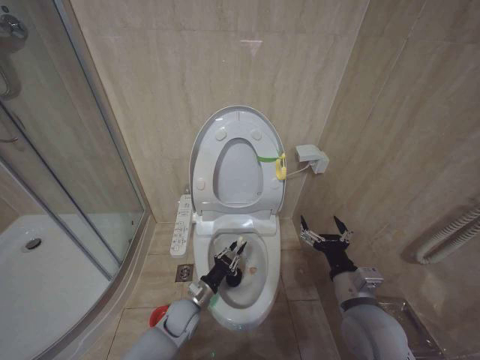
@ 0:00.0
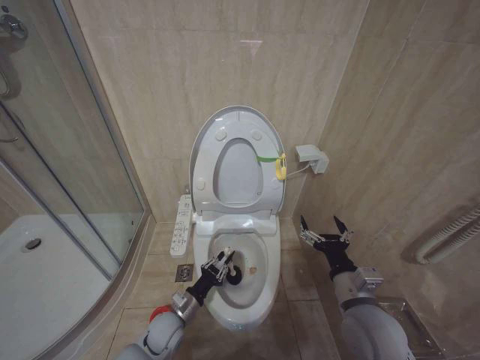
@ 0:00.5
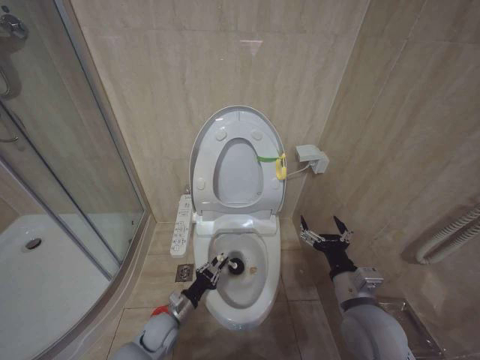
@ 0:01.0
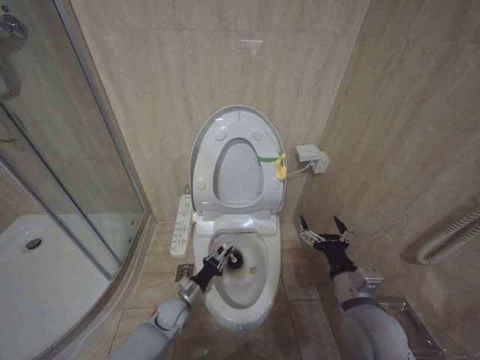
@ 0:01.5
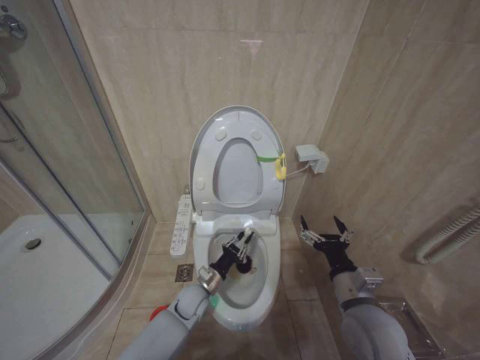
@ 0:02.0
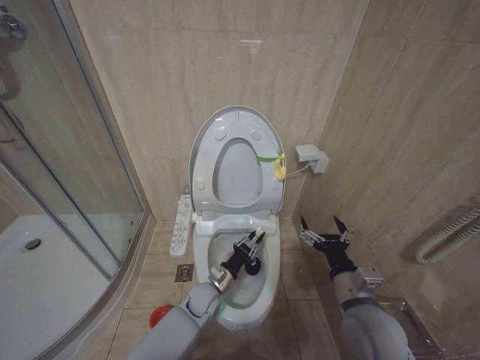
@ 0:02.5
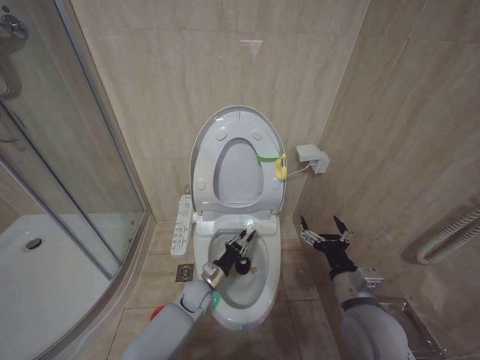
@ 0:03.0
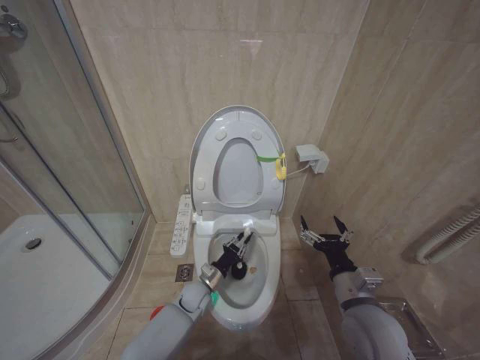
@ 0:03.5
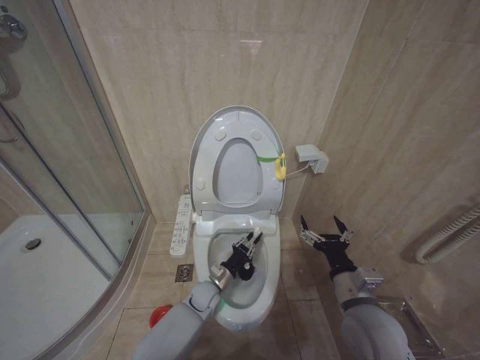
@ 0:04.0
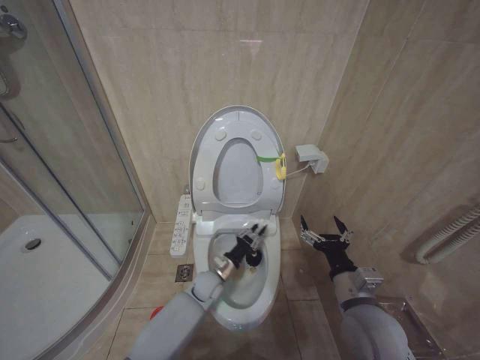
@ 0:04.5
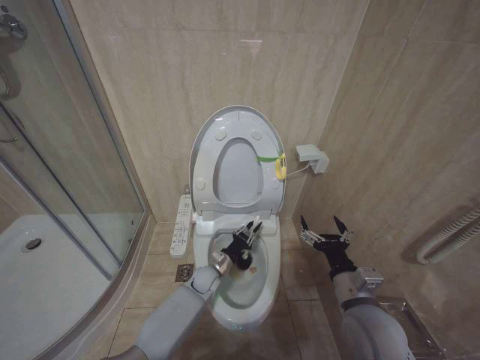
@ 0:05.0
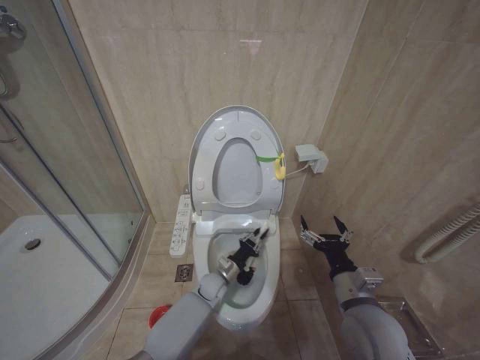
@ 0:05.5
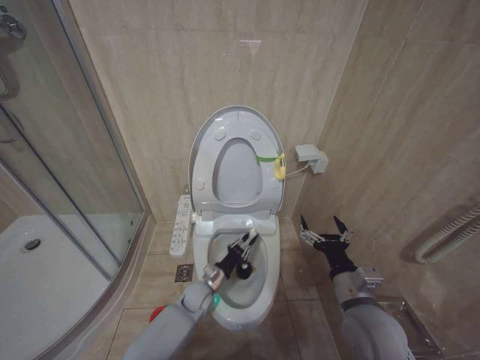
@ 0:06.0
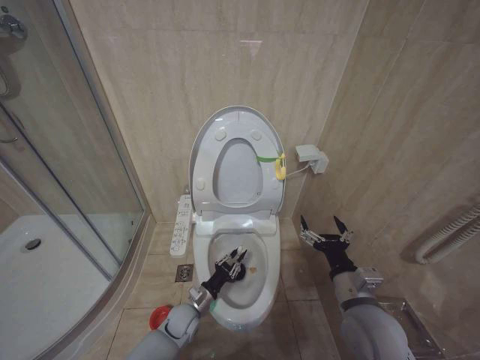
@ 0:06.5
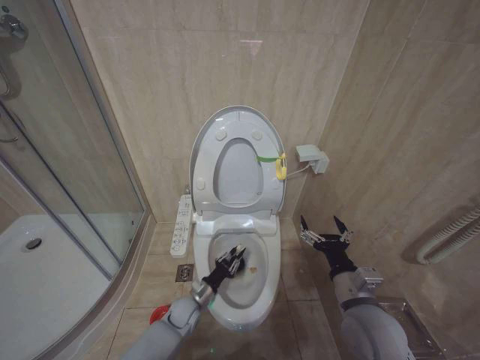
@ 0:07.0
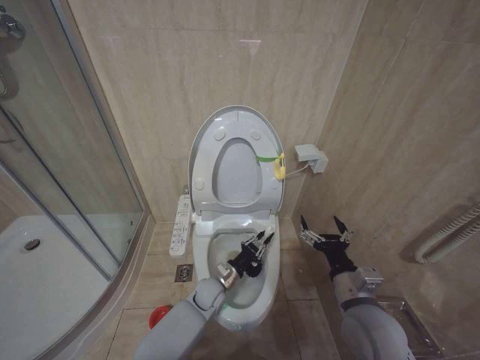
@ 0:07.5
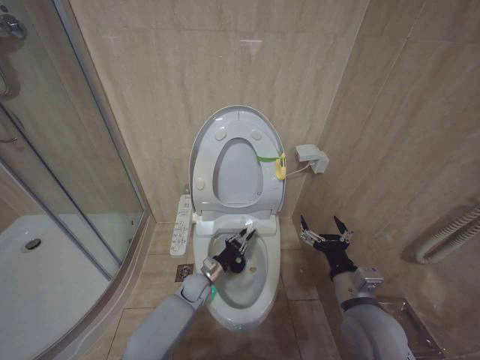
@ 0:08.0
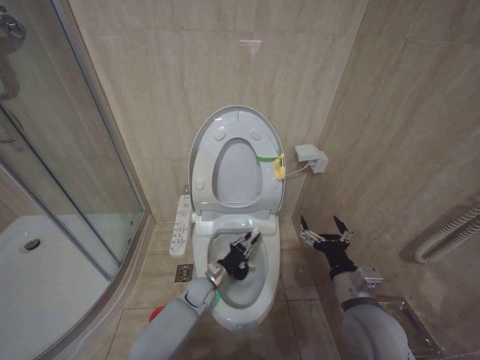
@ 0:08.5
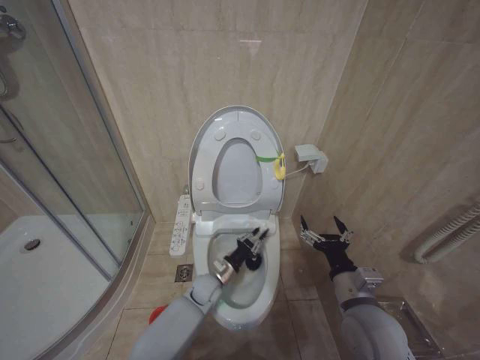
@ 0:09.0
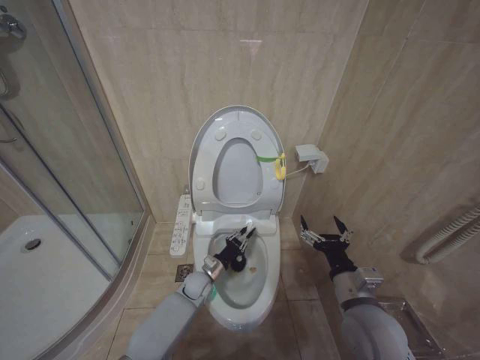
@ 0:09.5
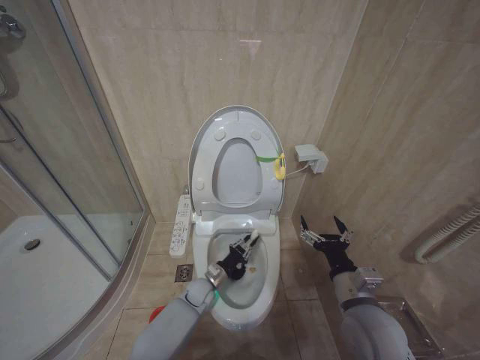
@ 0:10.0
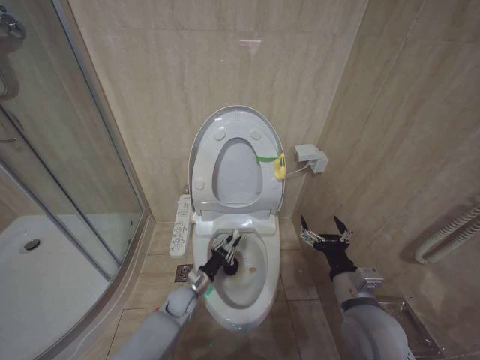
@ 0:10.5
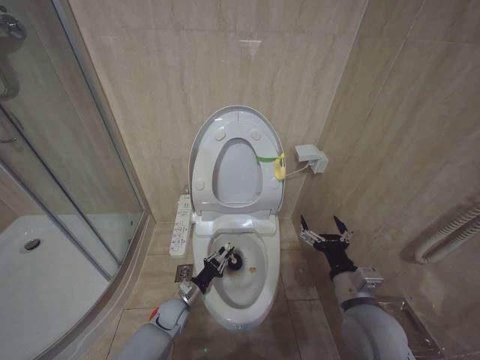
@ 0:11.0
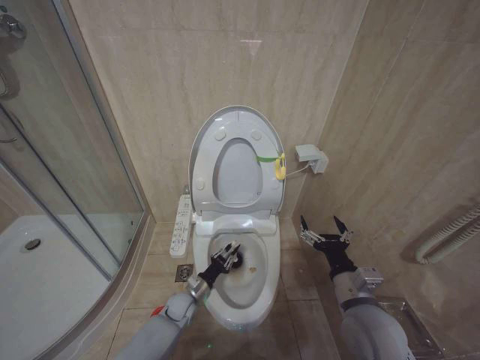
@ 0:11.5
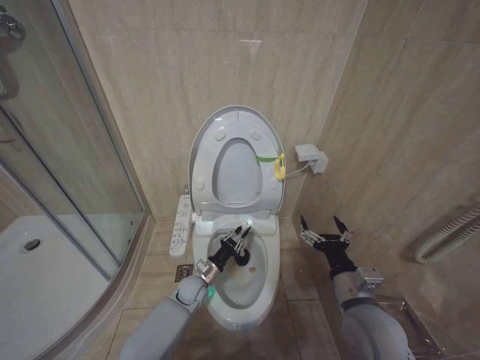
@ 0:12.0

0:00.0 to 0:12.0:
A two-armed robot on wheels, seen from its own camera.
Task of the whole recording: Open the toilet lid, clean the toilet bowl with a toilet brush, close the toilet lid, and flush.
0:00.0 to 0:02.0: The left gripper moves about 5 cm to the left and comes back.
0:02.0 to 0:04.0: There are only small adjustments of the grippers.
0:04.0 to 0:06.0: The grippers stay close to where they were, moving slightly.
0:06.0 to 0:08.0: The left gripper moves left and right over roughly 10 cm, changing direction 2 times.
0:08.0 to 0:10.0: There are only small adjustments of the grippers.
0:10.0 to 0:12.0: The left gripper heads to the left, covering approximately 5 cm.

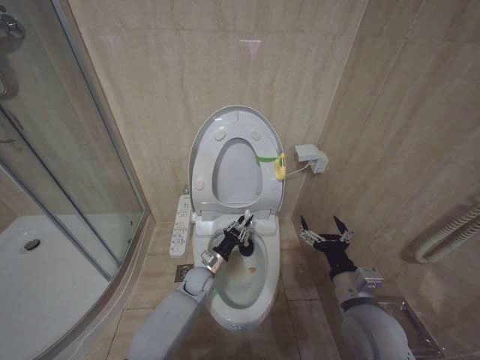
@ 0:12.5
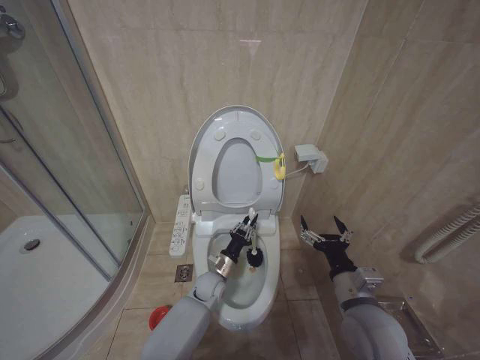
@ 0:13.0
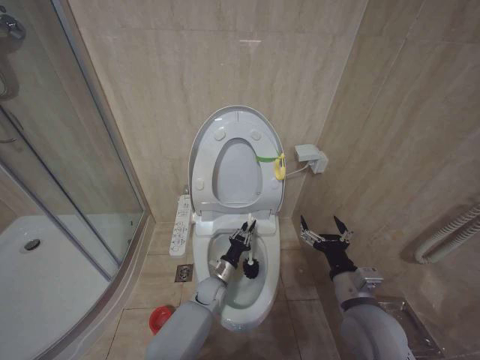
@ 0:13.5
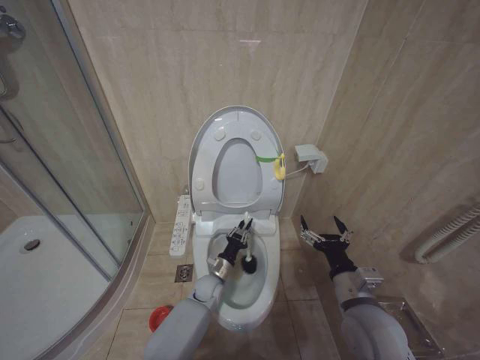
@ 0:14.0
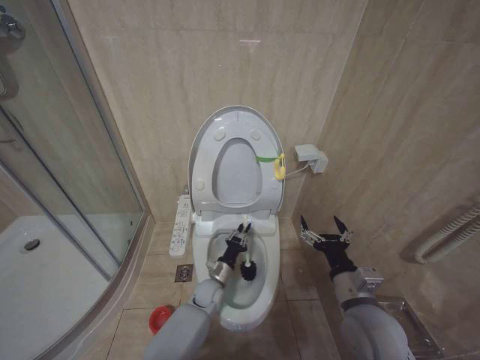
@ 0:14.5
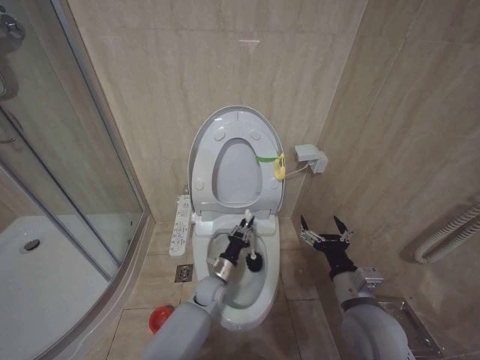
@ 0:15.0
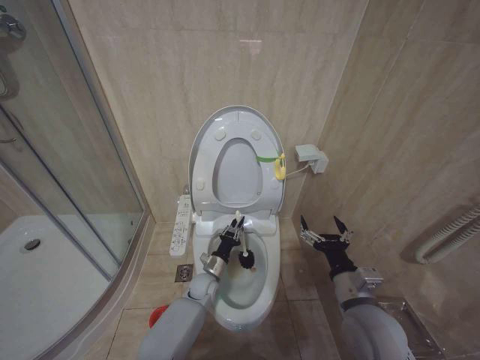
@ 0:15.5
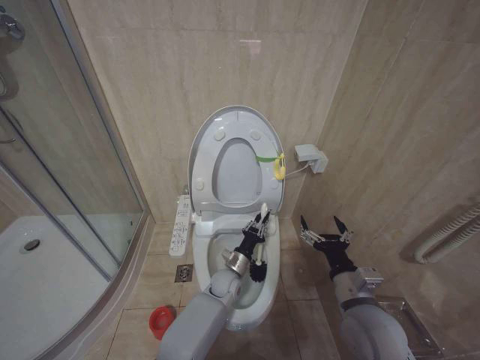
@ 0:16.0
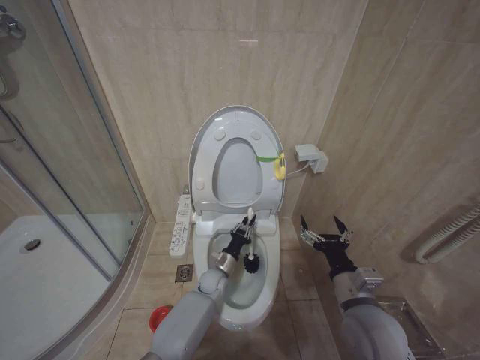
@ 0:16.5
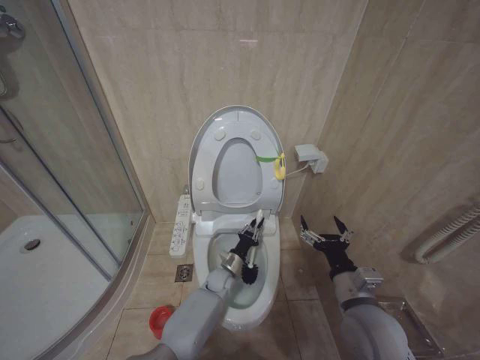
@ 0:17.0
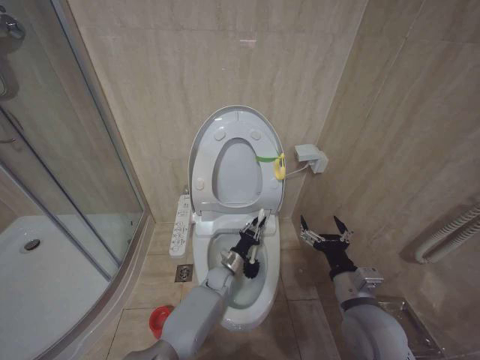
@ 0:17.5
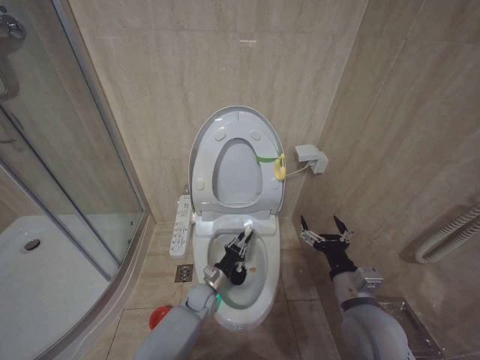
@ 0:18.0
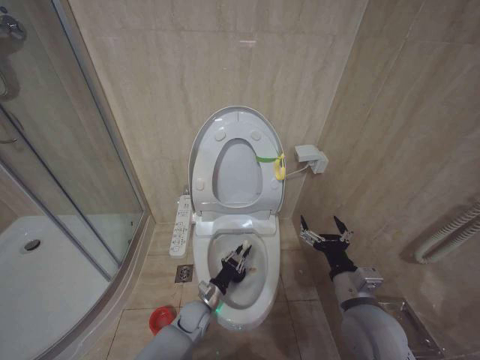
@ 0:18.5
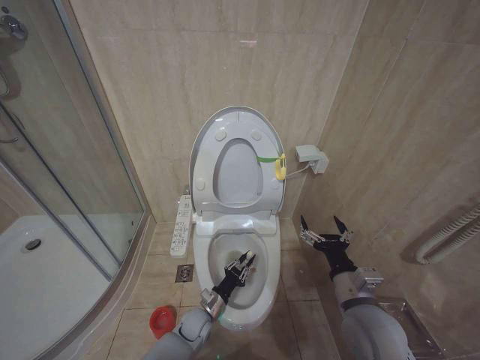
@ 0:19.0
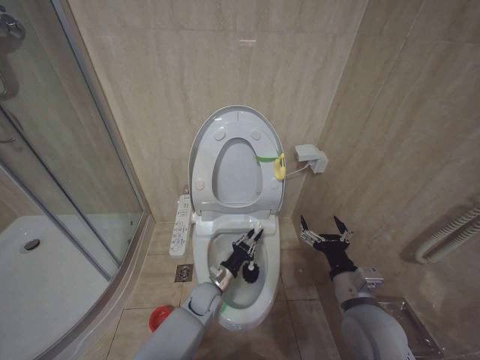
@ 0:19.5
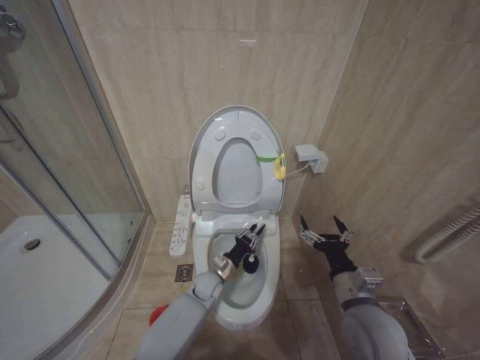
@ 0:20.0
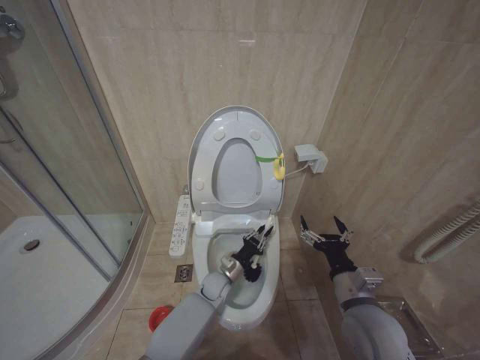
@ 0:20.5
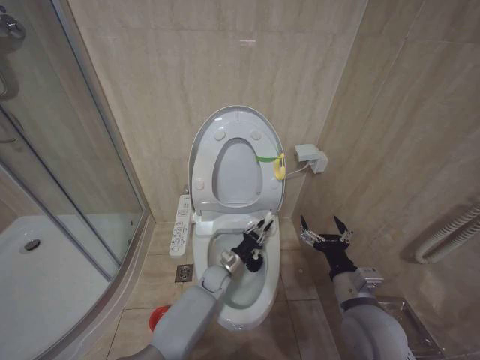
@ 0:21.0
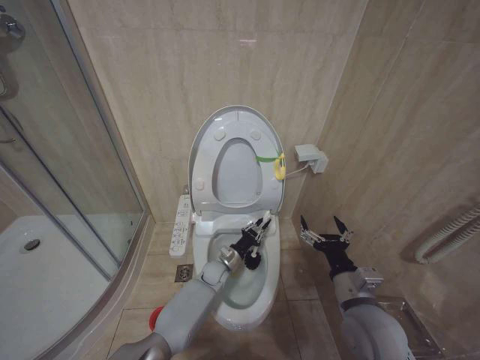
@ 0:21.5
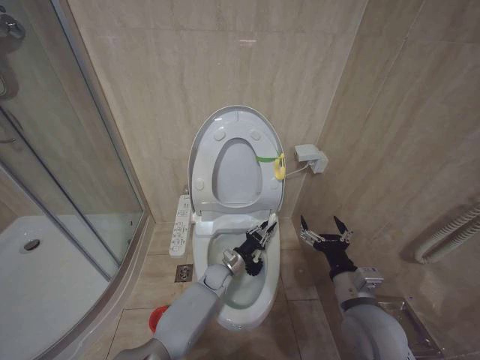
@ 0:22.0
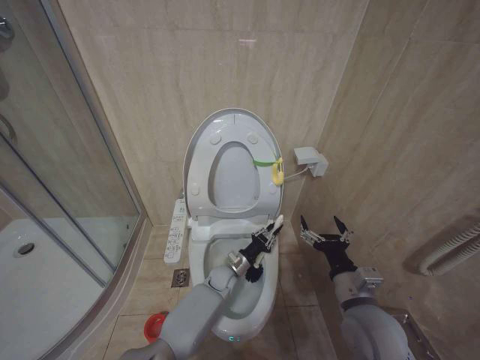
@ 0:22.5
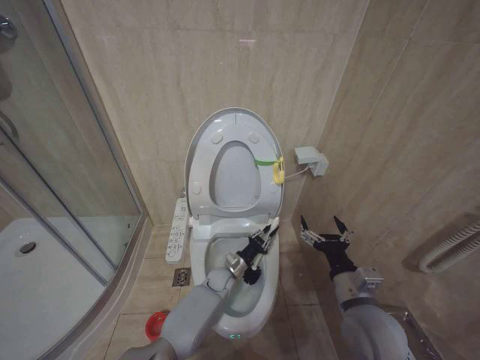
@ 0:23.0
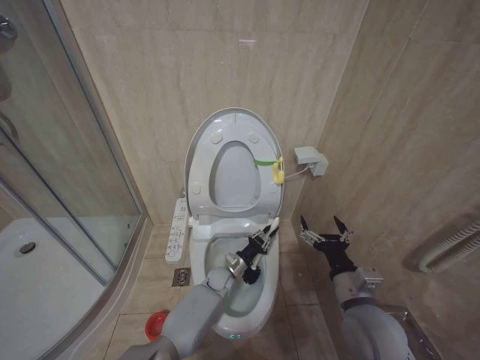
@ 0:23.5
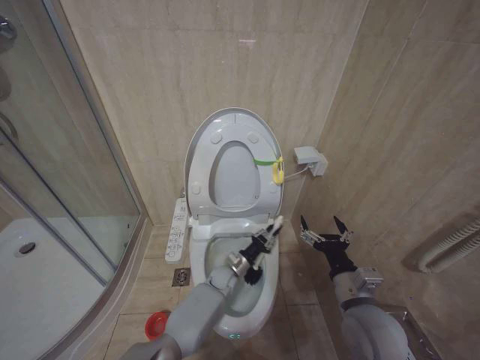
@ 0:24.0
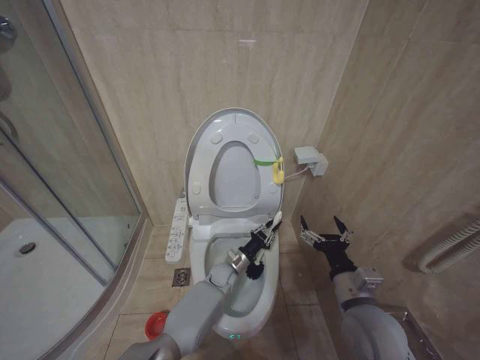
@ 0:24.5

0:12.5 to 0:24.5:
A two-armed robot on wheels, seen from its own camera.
Task of the whole recording: Open the toilet lid, clean the toilet bowl with a toilet brush, close the toilet lid, and flush.
0:12.5 to 0:14.5: The left gripper changes place by roughly 5 cm.
0:14.5 to 0:16.5: The grippers stay close to where they were, moving slightly.
0:16.5 to 0:18.5: The left gripper shifts some 10 cm backward and to the left.
0:18.5 to 0:20.5: The left gripper heads to the right, forward and upward, covering approximately 10 cm.
0:20.5 to 0:24.5: The grippers move only a little.

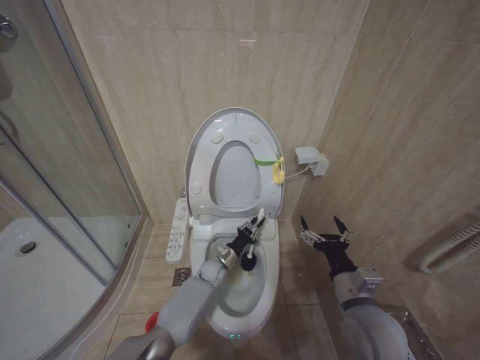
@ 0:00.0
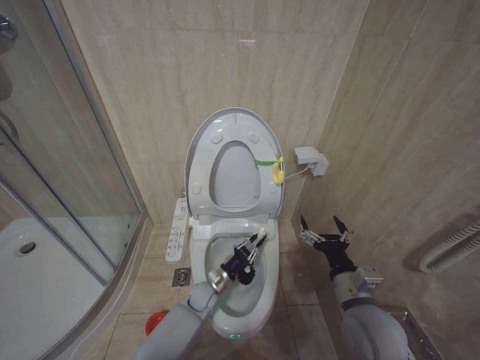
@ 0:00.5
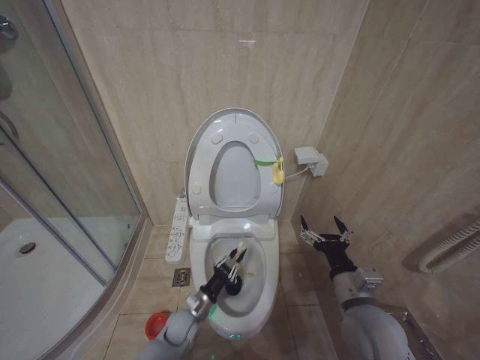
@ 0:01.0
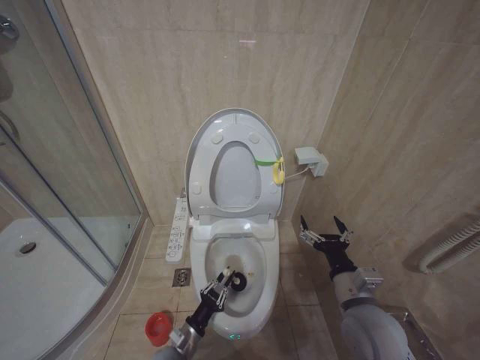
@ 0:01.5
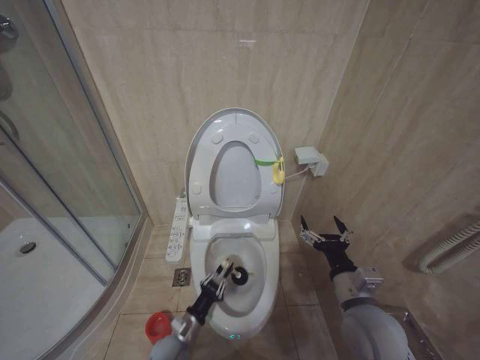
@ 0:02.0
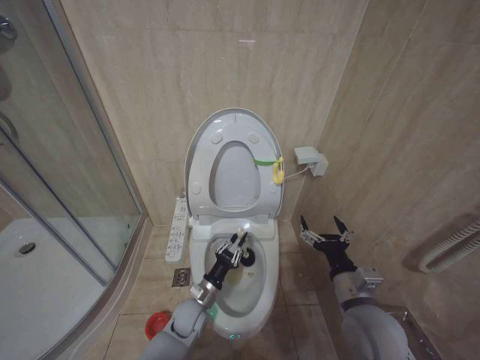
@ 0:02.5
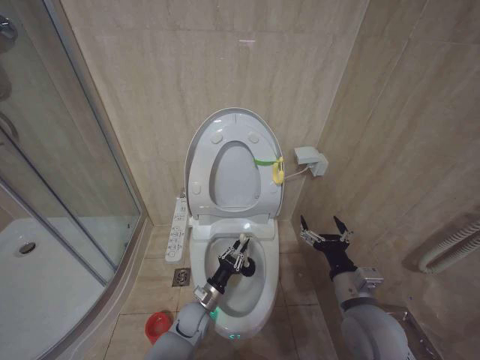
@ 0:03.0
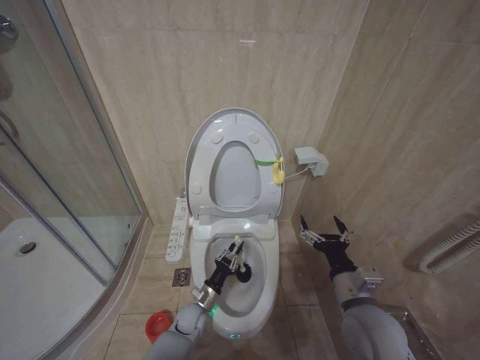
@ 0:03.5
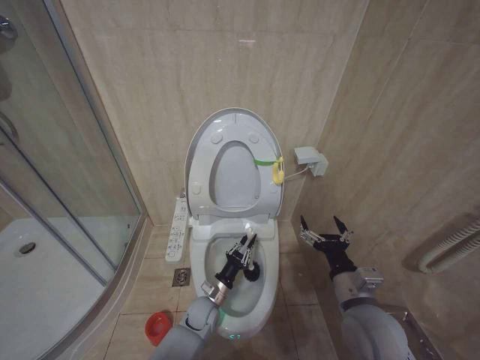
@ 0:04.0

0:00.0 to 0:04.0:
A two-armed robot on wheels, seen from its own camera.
Task of the whole recording: Open the toilet lid, clean the toilet bowl with a toilet brush, close the toilet lid, and flush.
0:00.0 to 0:02.0: The left gripper goes some 25 cm backward and to the left.
0:02.0 to 0:04.0: The left gripper heads forward and to the right, covering about 15 cm.
